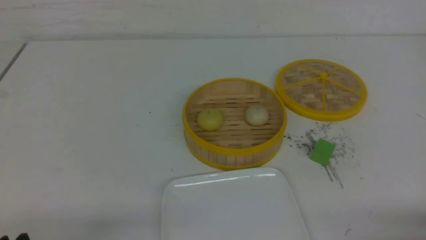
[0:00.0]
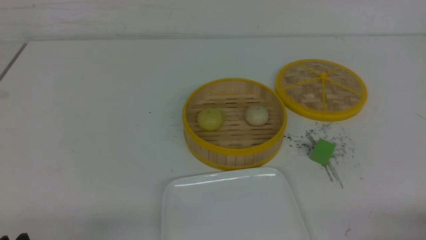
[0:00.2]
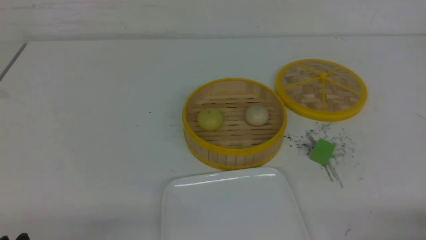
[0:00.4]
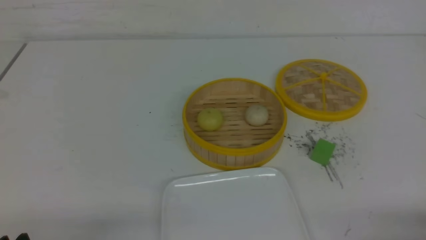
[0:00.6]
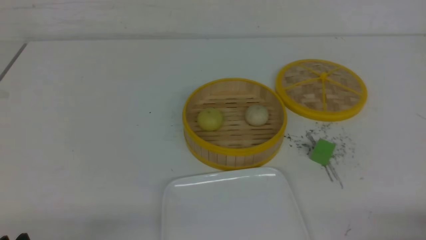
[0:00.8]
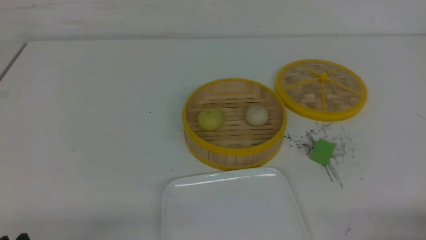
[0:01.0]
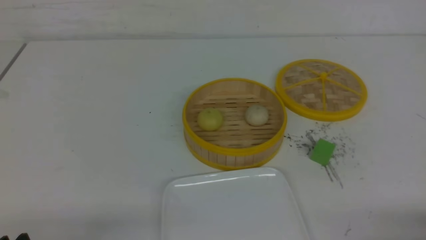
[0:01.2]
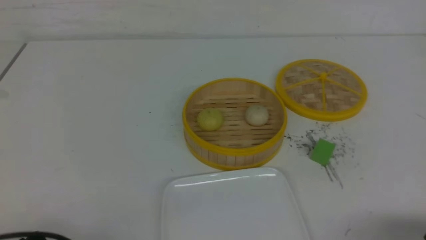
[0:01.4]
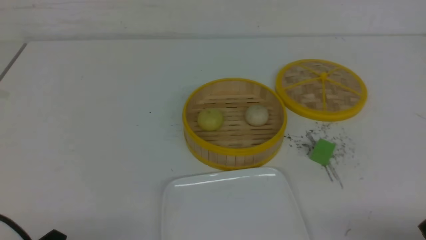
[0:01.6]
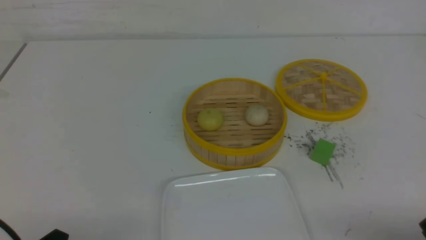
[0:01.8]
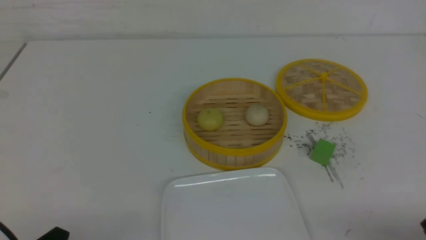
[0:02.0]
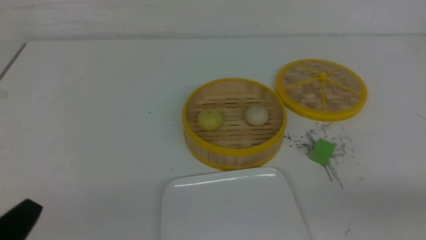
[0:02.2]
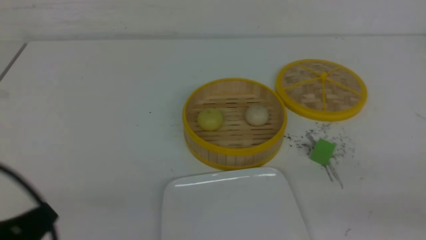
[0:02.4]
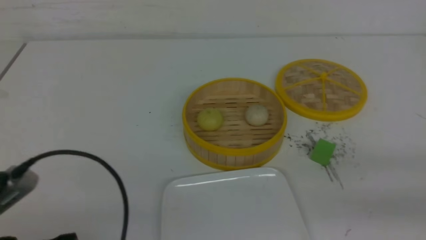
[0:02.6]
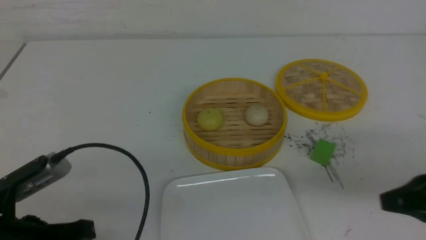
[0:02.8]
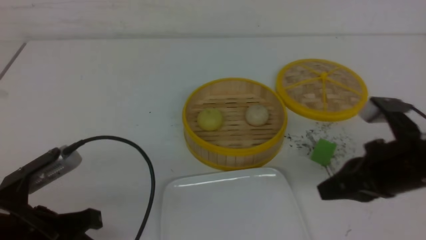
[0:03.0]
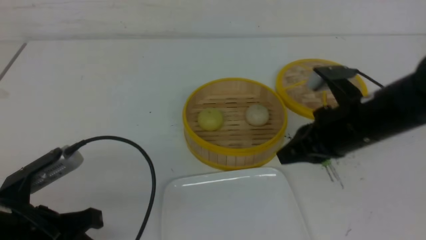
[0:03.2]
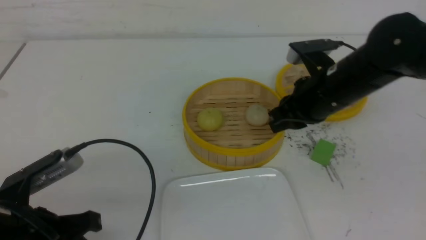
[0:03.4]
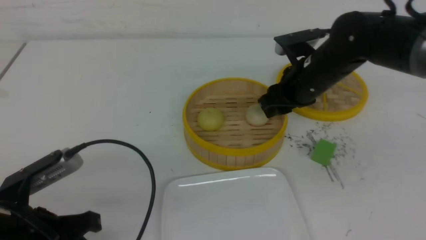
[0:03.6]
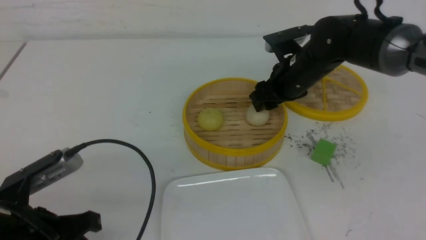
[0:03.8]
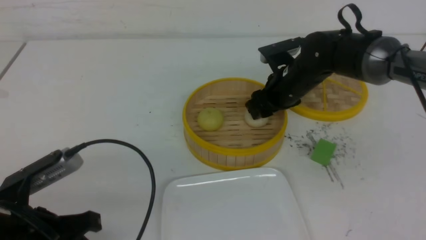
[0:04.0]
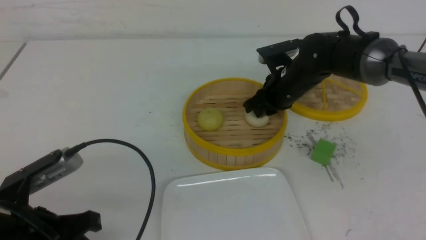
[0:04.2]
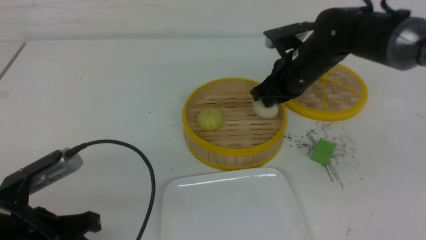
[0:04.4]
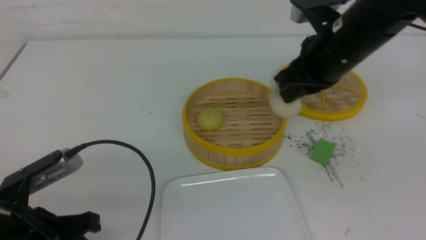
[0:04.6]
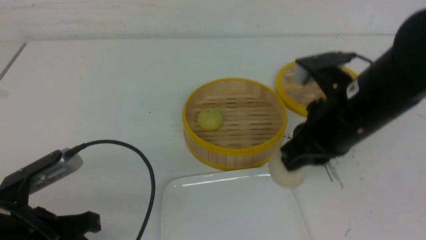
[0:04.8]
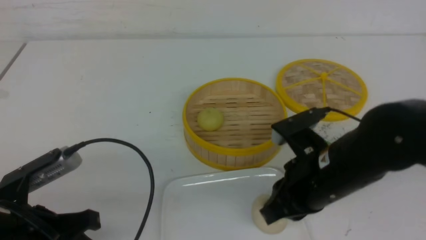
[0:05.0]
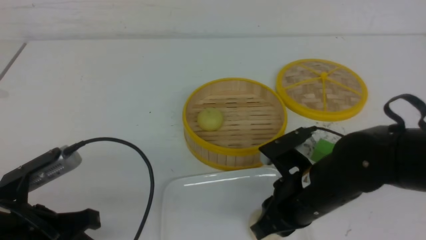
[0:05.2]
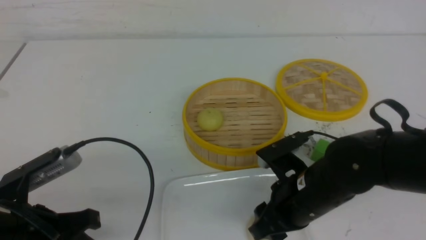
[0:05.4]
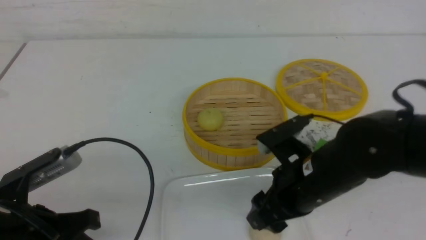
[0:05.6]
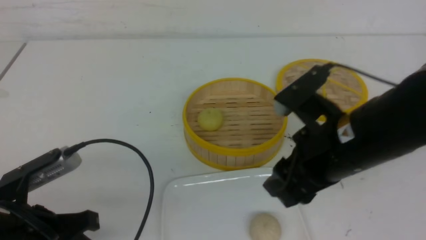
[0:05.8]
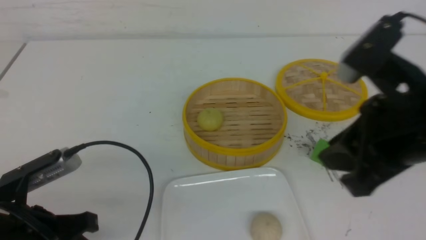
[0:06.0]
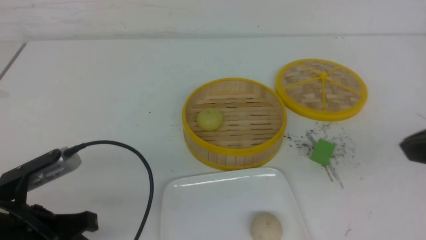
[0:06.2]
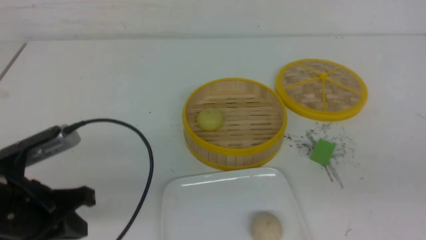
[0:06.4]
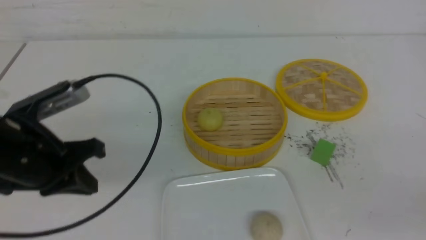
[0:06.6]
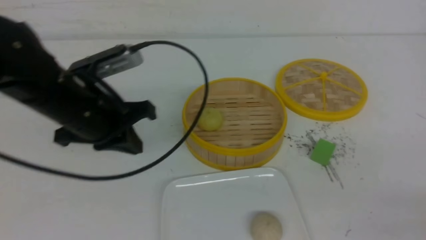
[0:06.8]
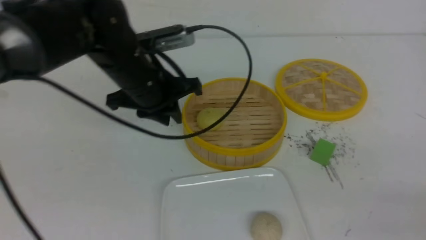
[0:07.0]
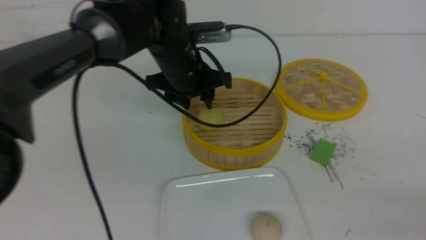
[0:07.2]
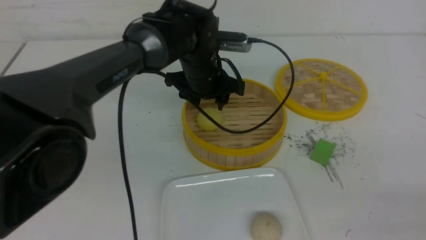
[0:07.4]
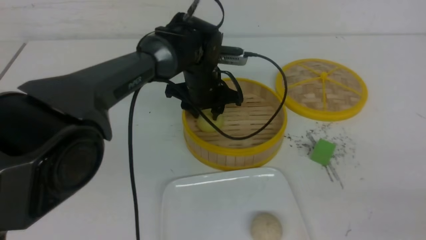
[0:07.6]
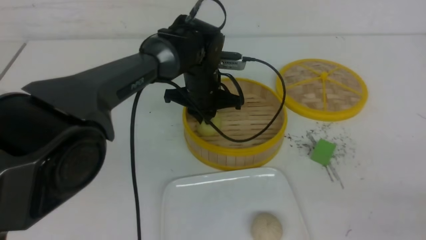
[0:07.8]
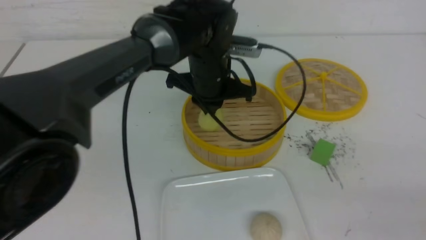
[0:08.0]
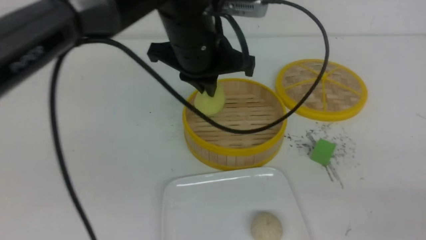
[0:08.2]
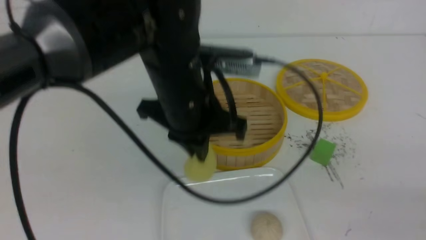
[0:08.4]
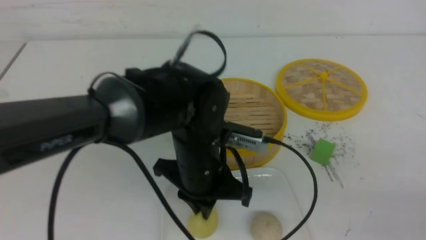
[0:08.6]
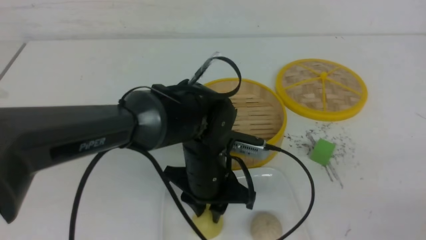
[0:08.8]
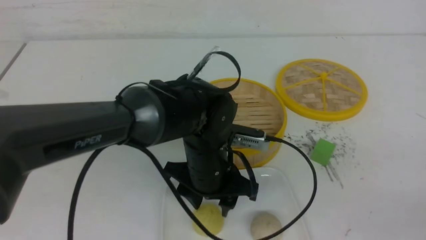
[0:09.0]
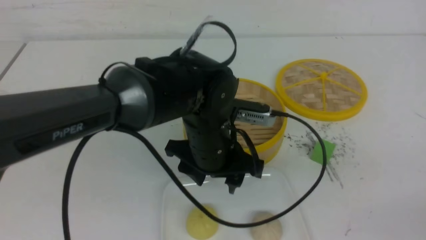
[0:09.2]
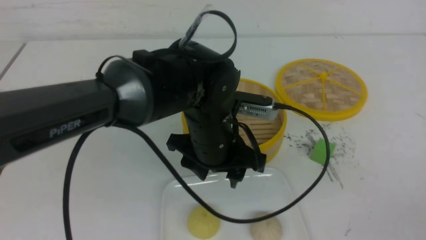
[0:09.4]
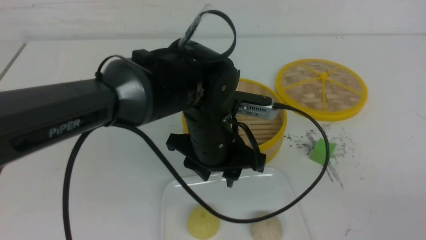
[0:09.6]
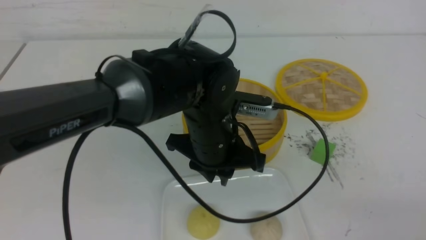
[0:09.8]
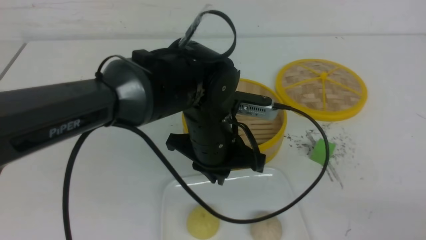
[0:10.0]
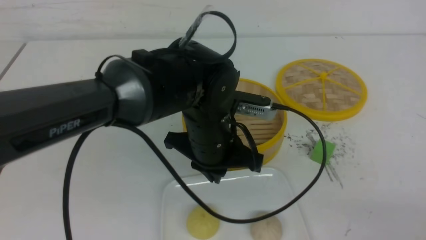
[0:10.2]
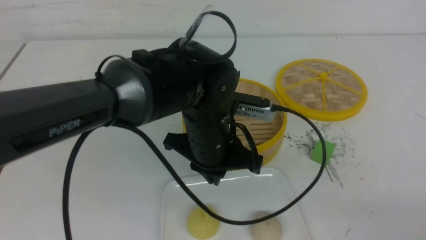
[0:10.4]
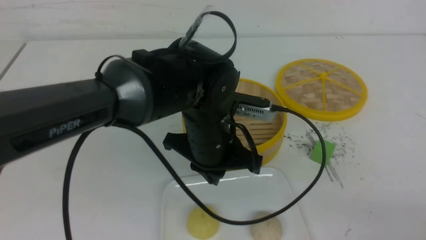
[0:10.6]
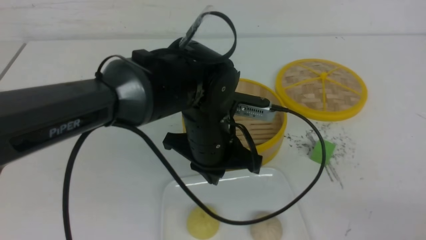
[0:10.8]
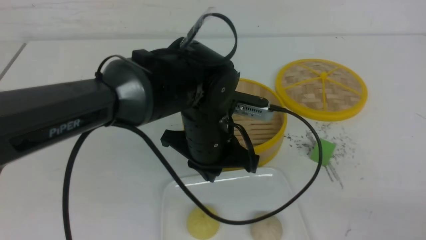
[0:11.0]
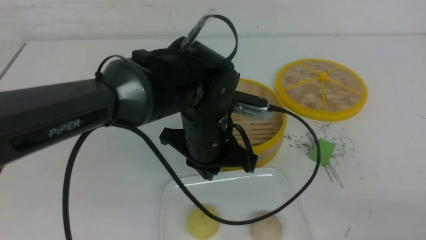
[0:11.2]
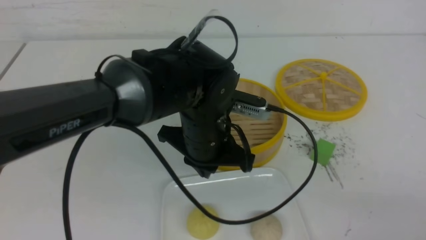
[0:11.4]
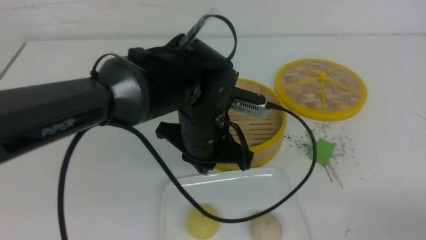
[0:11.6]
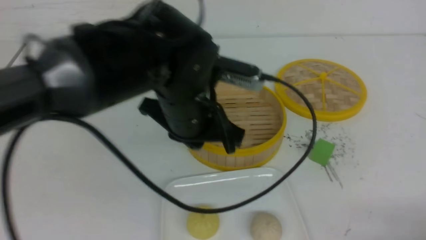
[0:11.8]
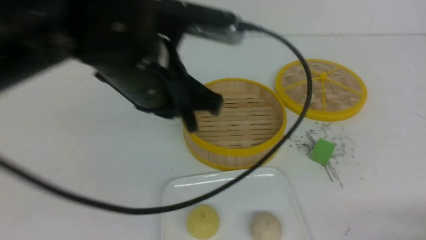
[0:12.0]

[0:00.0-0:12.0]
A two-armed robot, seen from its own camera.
Step, 0:00.0 to 0:04.4: use the right arm to grab the steamed stuffed bun that is closest to it.
Step, 0:04.6 to 0:05.6: use the right arm to put the steamed stuffed bun into the plate.
Step, 0:05.8 to 0:07.8: use the left arm to grab the steamed stuffed bun that is closest to it.
Step, 0:08.0 to 0:09.0: use the left arm to put the steamed stuffed bun into the plate.
0:01.6 to 0:03.0: The right gripper travels forward, upward and to the left by about 20 cm, and closes its fingers. Meanwhile the left gripper goes roughly 10 cm forward and upward, and closes its fingers.
0:03.0 to 0:04.4: The right gripper heads forward and to the left, covering about 25 cm, and opens and closes again.
0:04.4 to 0:06.0: The right gripper is displaced backward by roughly 20 cm, and opens up.
0:06.0 to 0:07.6: The left gripper travels forward and to the right by some 35 cm, and opens its fingers; the right gripper moves to the right, backward and downward, some 20 cm, and closes its fingers.
0:07.6 to 0:09.0: The left gripper heads backward, covering about 15 cm, and closes and opens again.
0:09.0 to 0:10.4: The left gripper closes.
0:10.4 to 0:12.0: The left gripper travels upward and to the left by roughly 10 cm, while the right gripper shifts approximately 10 cm downward.

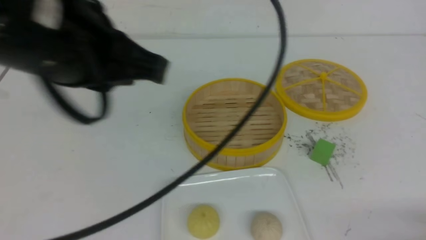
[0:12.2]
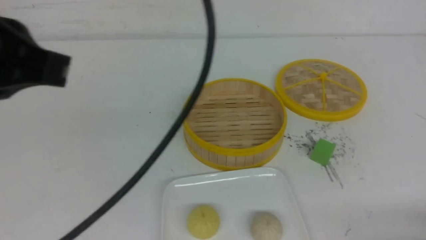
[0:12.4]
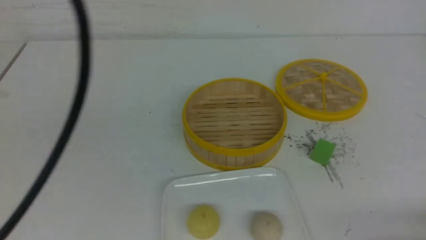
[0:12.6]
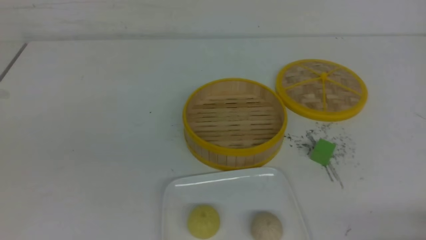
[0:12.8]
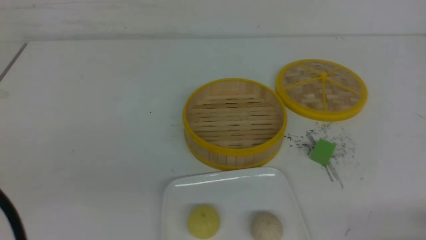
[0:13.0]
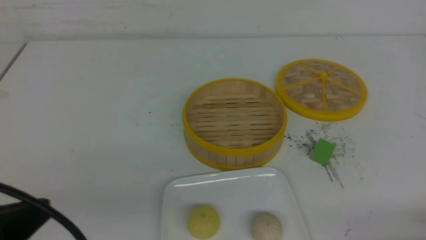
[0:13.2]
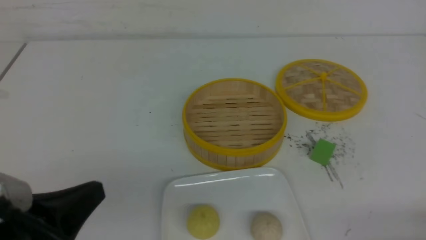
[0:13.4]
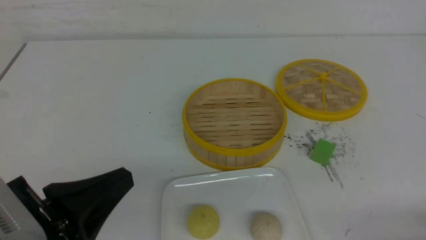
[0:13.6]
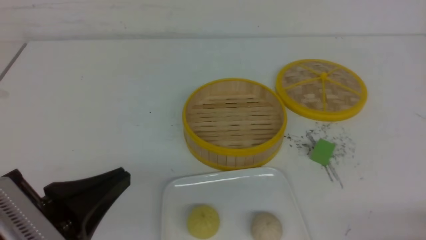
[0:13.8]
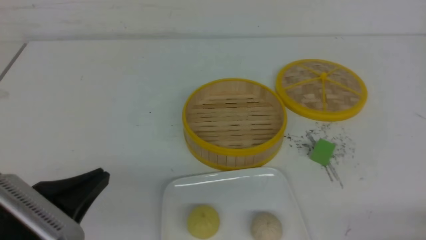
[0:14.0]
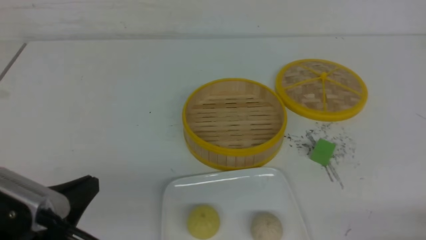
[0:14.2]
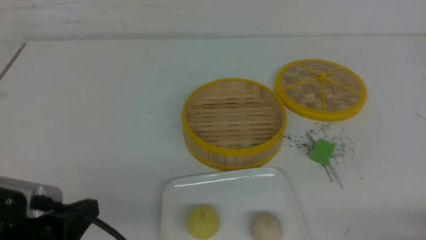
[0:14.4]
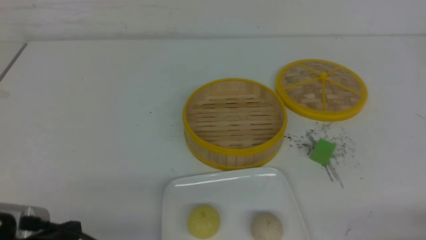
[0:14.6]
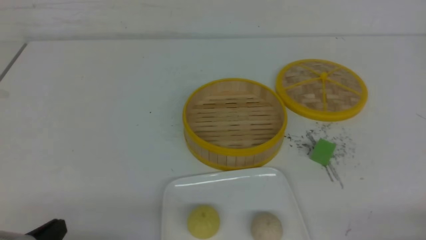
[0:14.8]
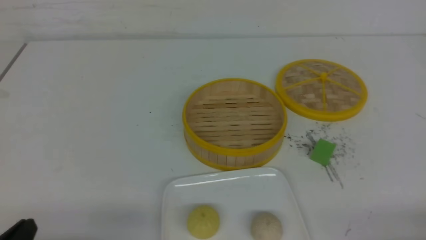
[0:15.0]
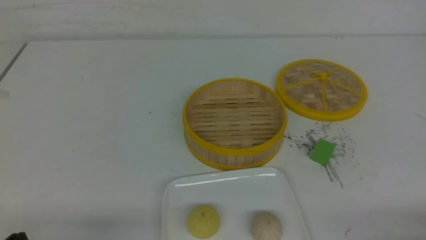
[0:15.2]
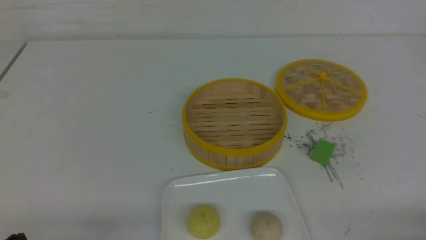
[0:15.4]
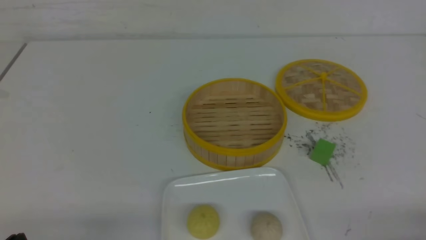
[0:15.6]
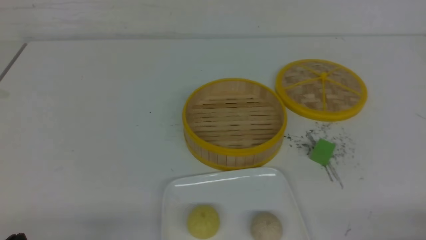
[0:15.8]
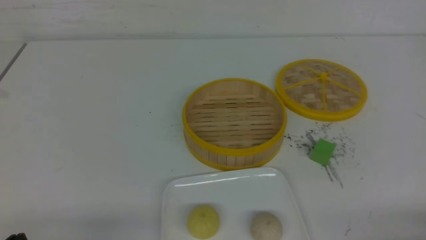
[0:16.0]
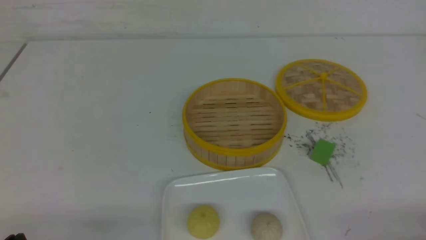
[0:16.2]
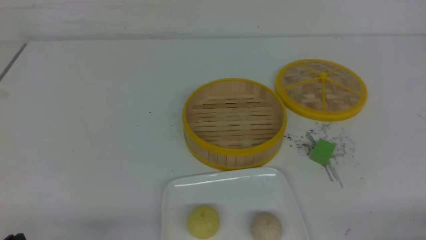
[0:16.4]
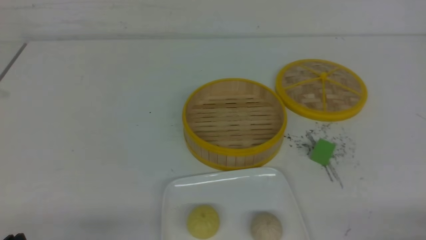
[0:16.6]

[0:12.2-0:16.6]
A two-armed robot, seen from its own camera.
0:12.2 to 0:13.6: The left gripper travels downward, backward and to the left by approximately 20 cm.
0:13.6 to 0:15.2: The left gripper shifts about 10 cm downward and to the left.
0:15.2 to 0:16.6: The two grippers keep their place.
